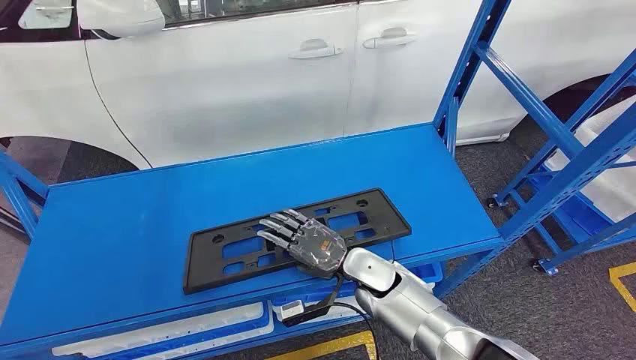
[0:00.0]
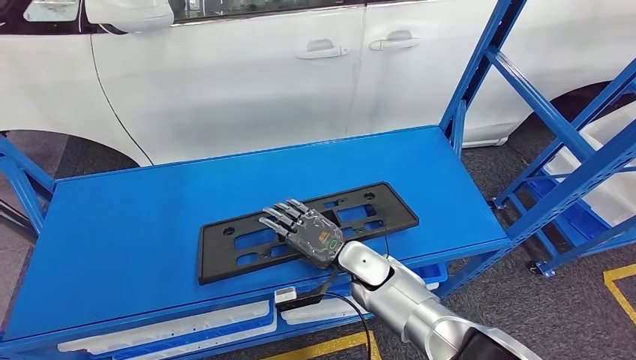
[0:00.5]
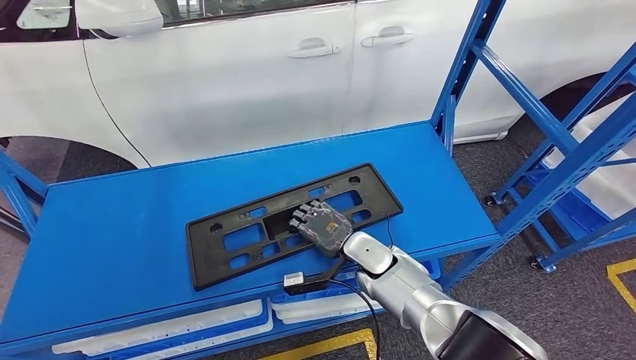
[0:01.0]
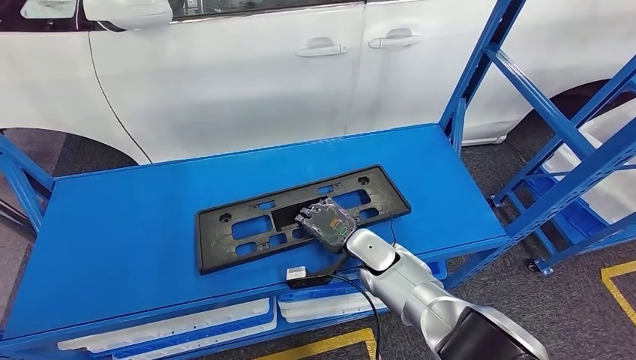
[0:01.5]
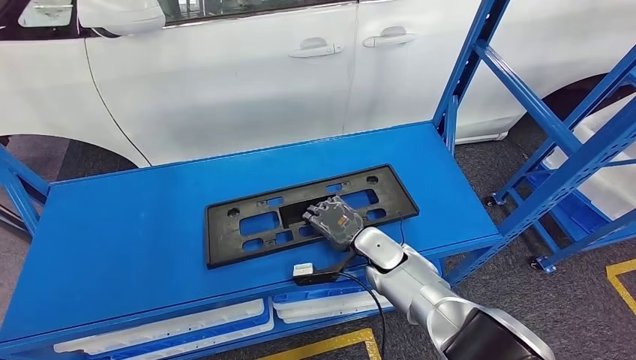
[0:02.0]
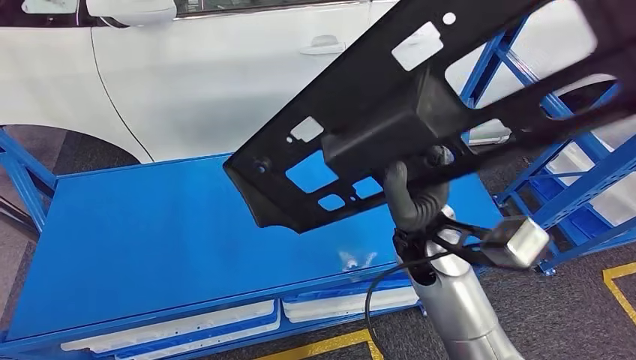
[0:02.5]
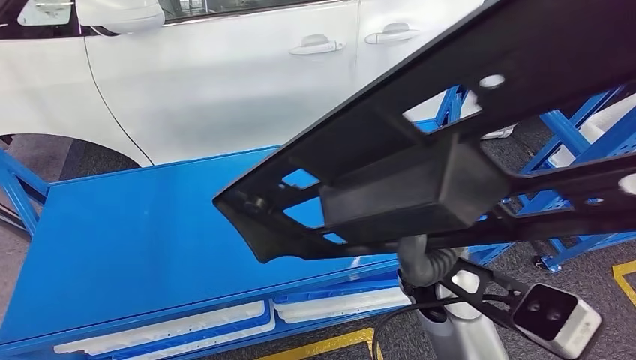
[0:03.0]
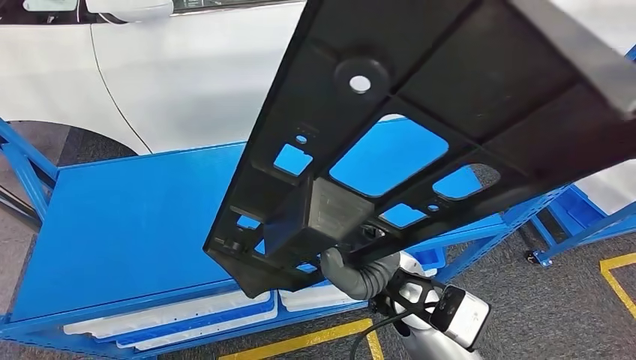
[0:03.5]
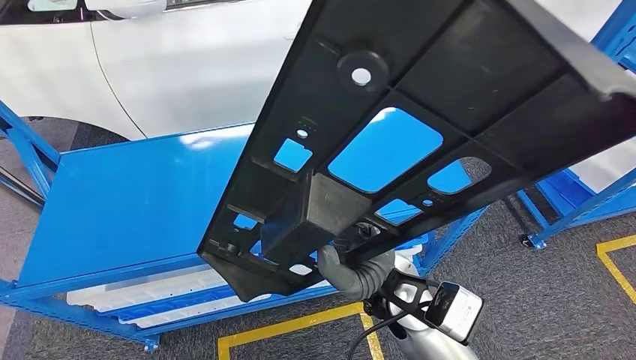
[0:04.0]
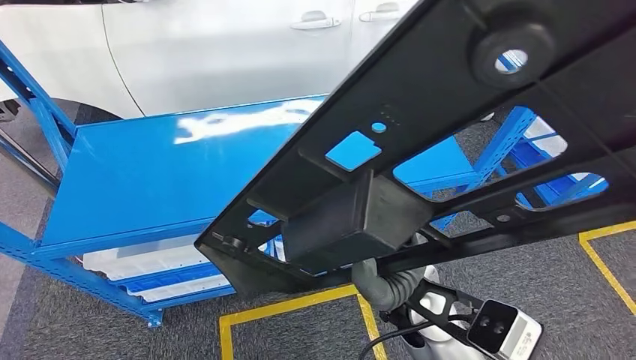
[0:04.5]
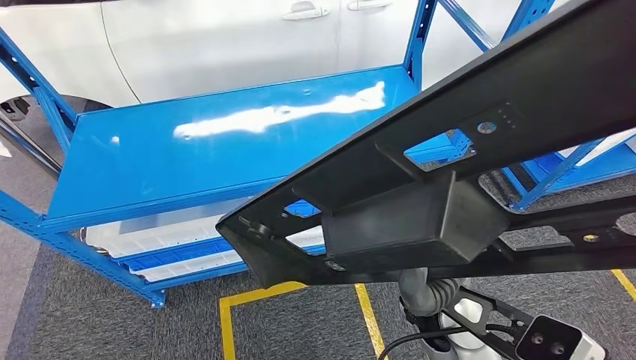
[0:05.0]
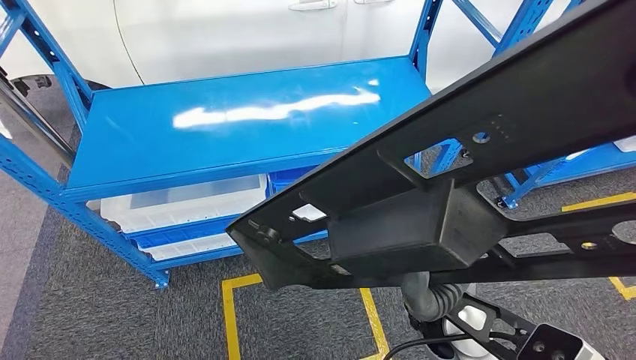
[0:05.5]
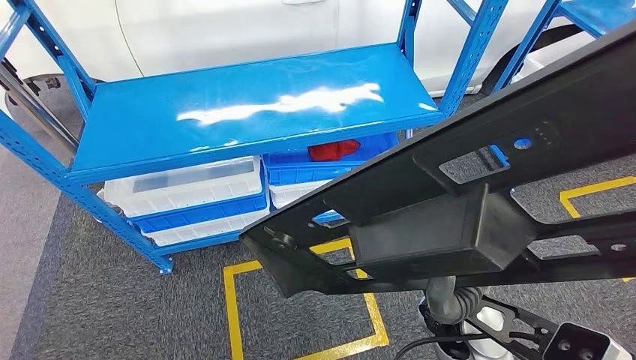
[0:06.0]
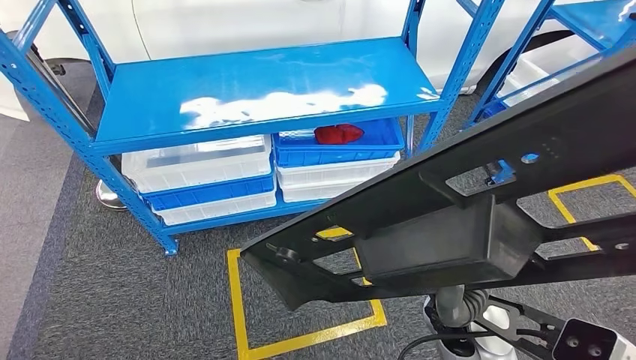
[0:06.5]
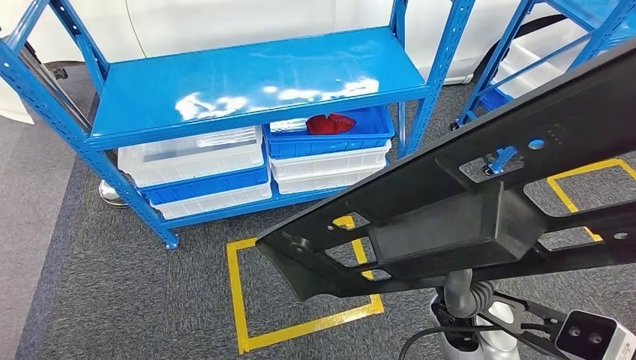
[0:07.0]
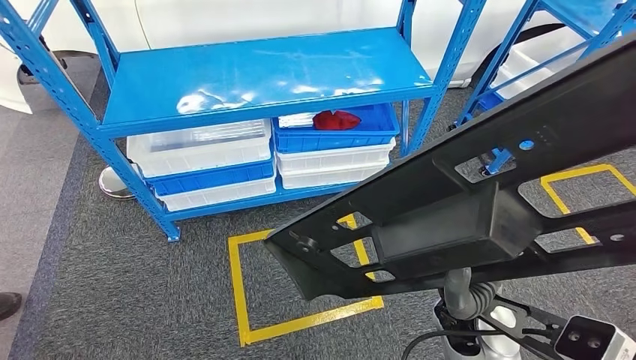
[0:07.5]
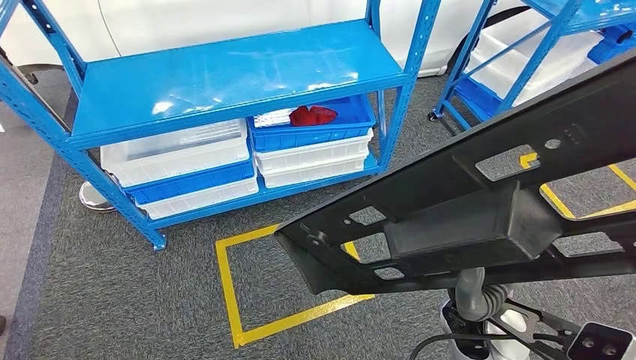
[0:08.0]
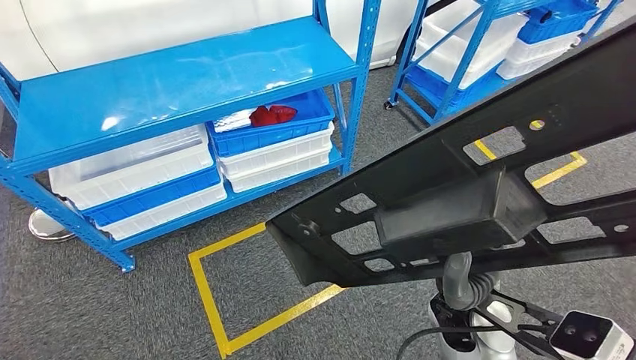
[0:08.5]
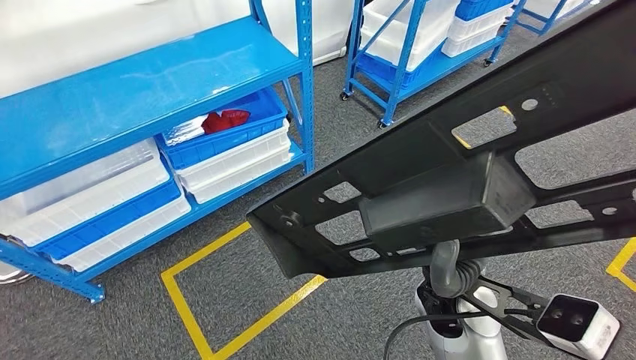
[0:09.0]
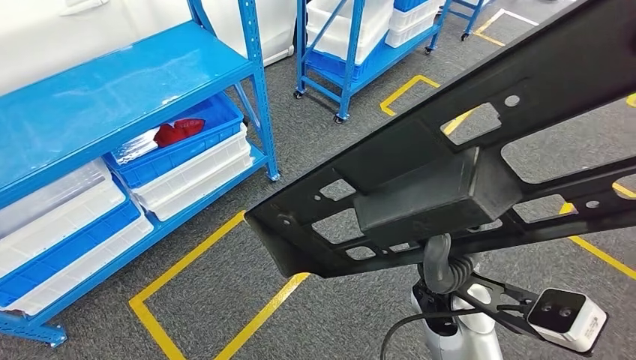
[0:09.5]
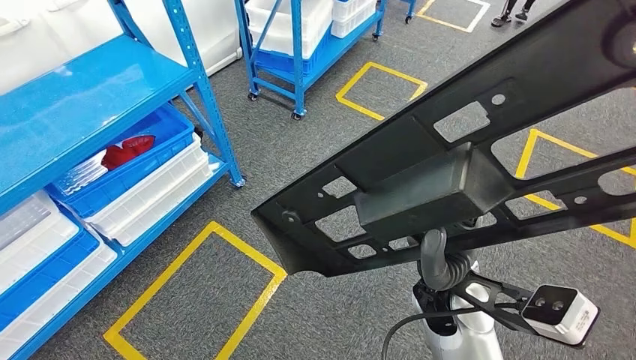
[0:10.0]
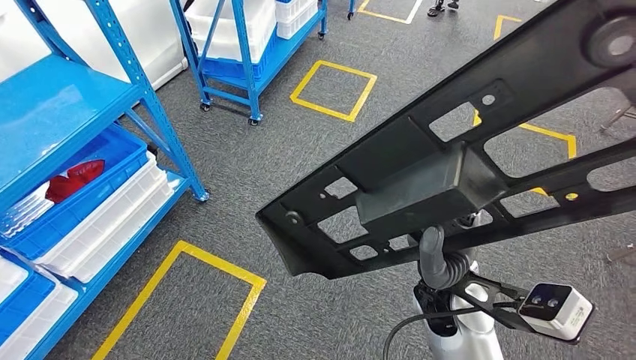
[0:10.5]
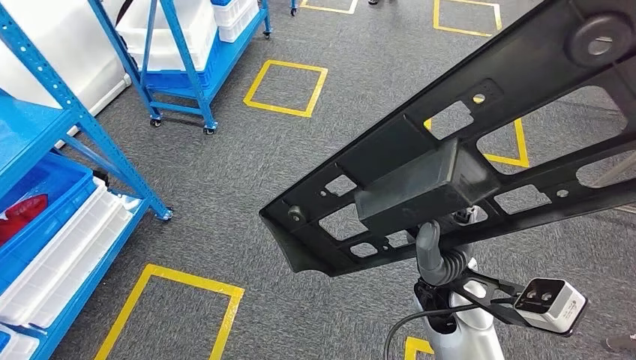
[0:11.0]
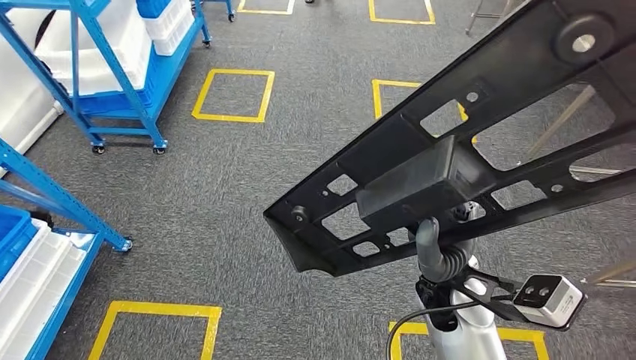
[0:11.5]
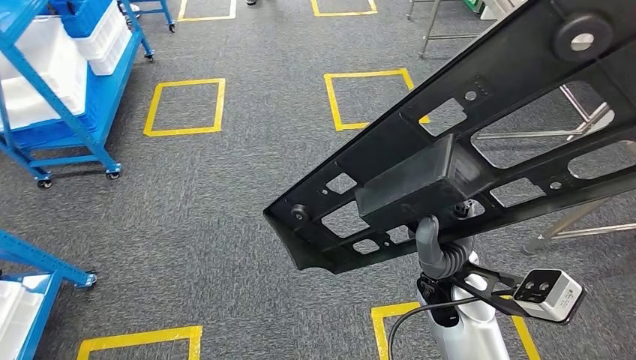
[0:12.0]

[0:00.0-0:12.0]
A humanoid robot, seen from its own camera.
Step, 0:00.0 to 0:03.0: Pick up the large material from the shelf.

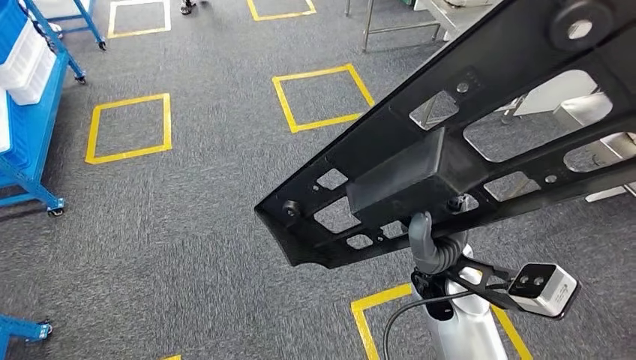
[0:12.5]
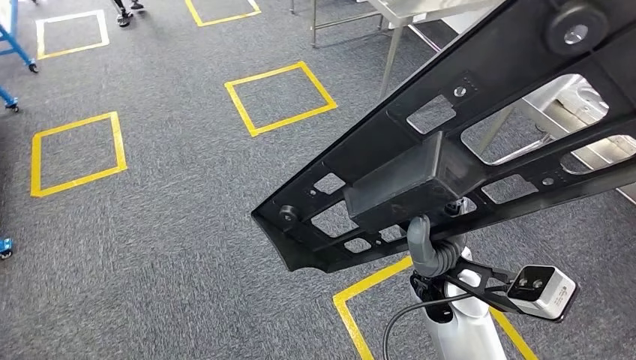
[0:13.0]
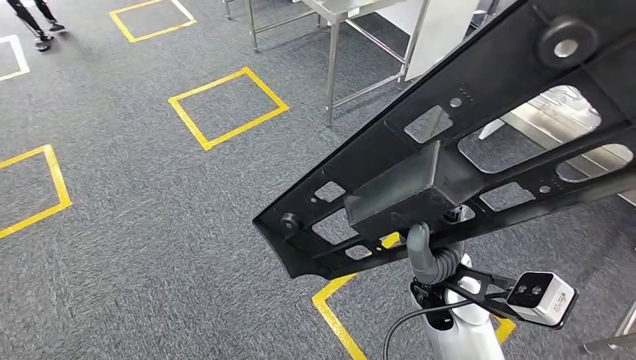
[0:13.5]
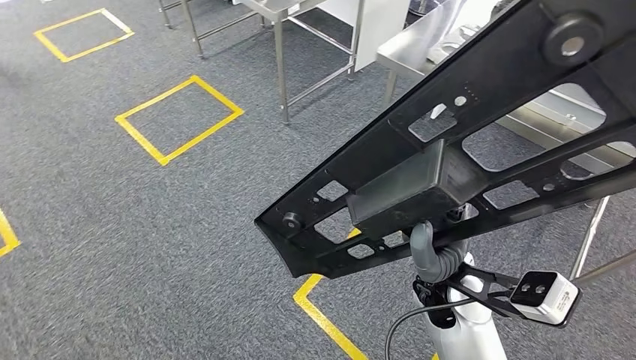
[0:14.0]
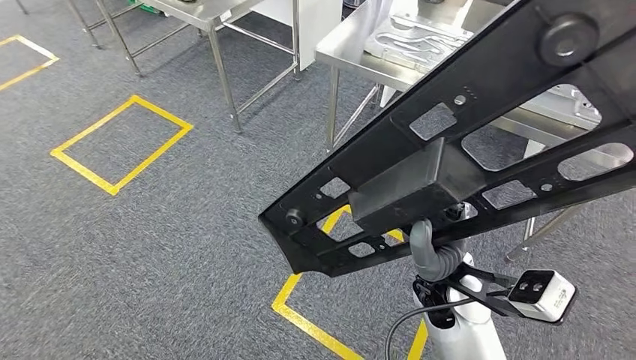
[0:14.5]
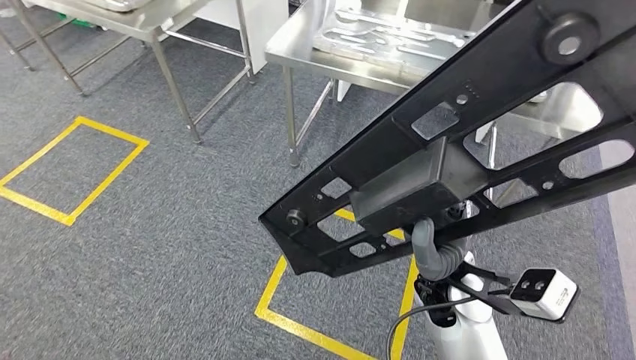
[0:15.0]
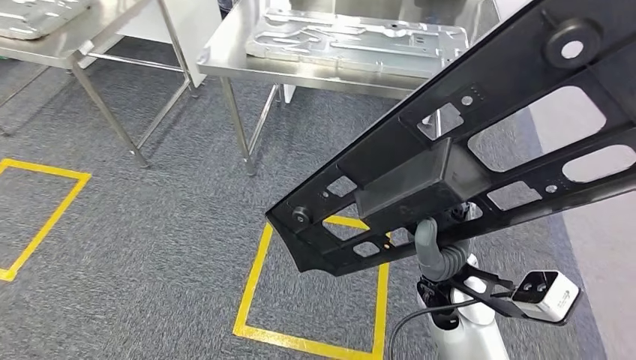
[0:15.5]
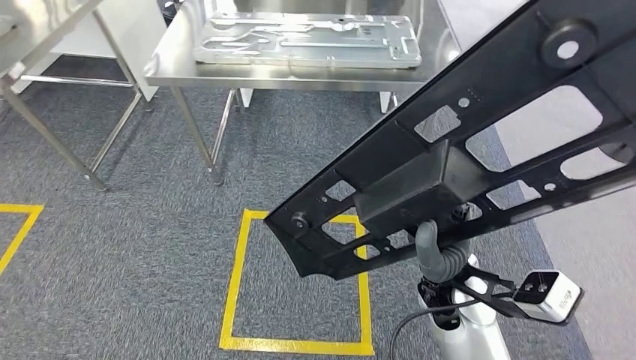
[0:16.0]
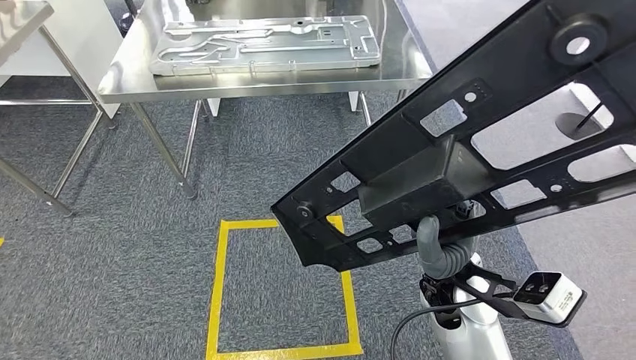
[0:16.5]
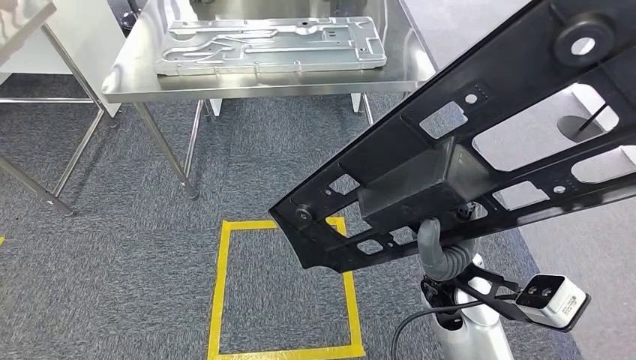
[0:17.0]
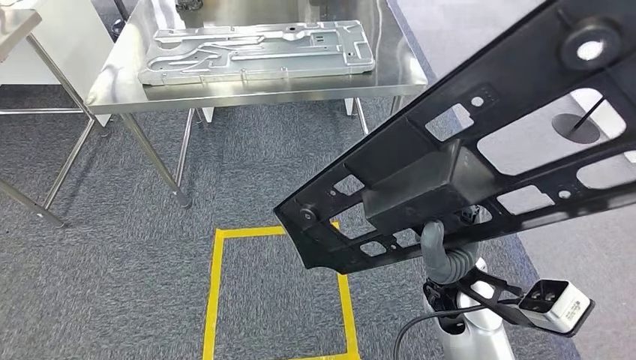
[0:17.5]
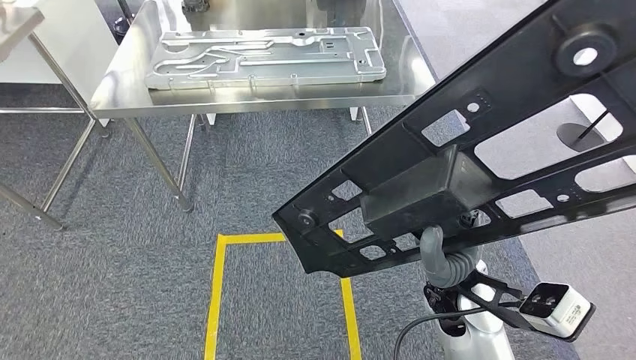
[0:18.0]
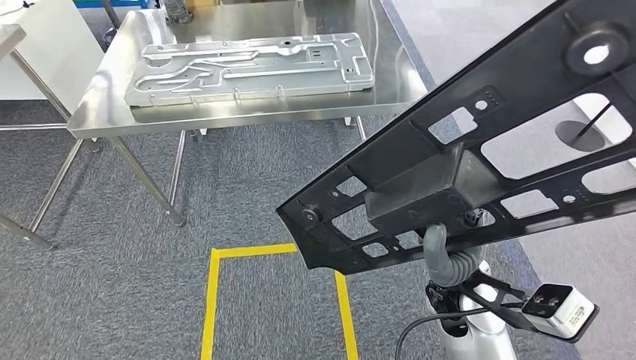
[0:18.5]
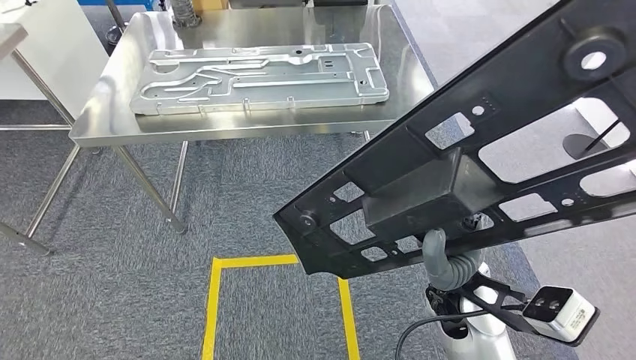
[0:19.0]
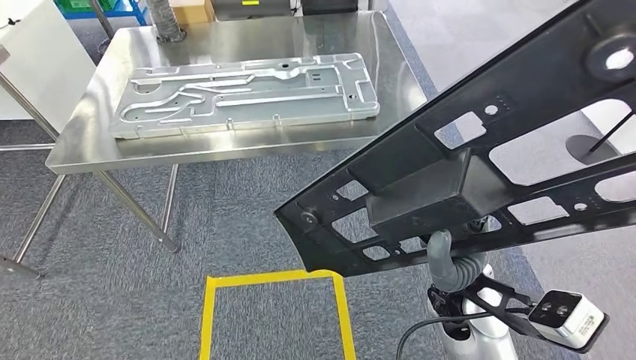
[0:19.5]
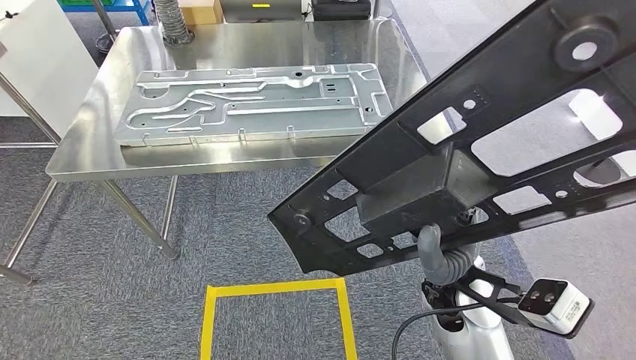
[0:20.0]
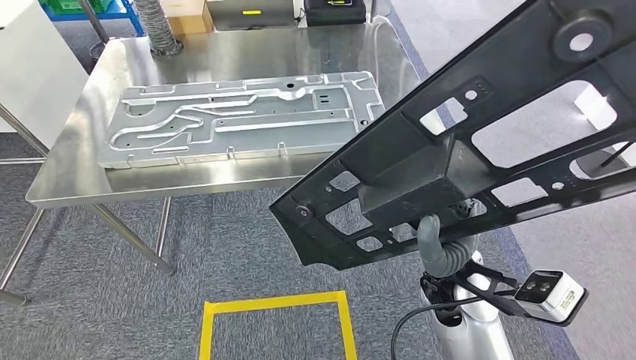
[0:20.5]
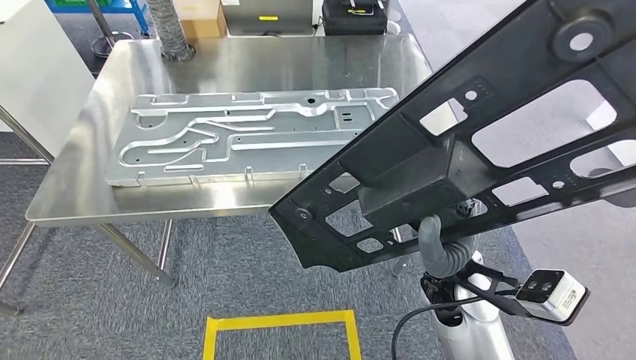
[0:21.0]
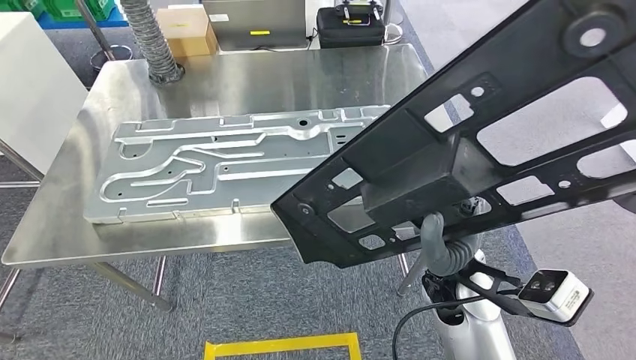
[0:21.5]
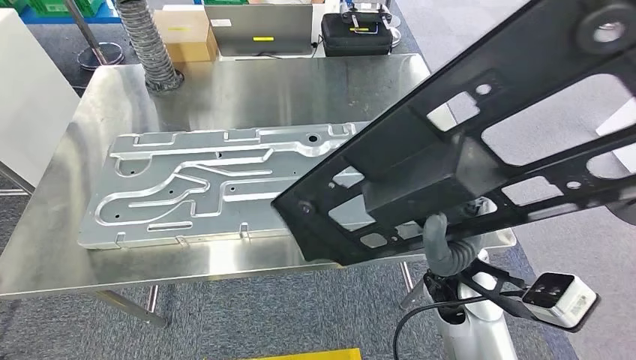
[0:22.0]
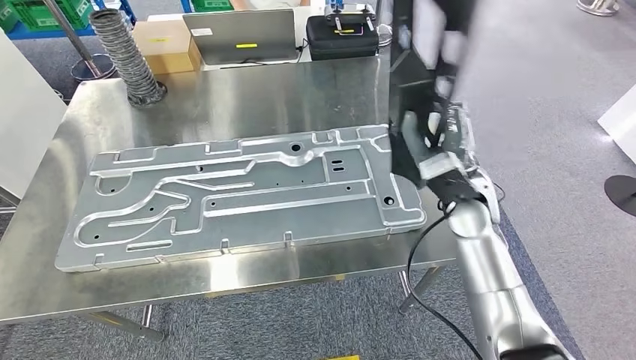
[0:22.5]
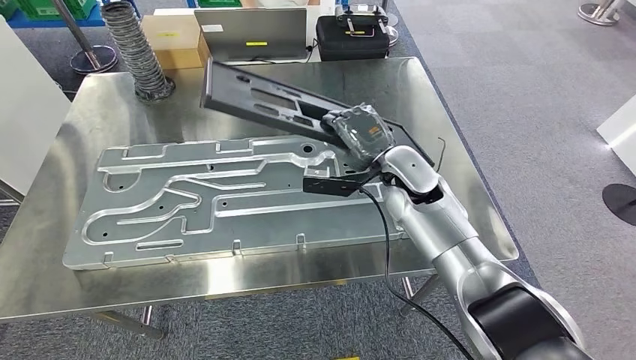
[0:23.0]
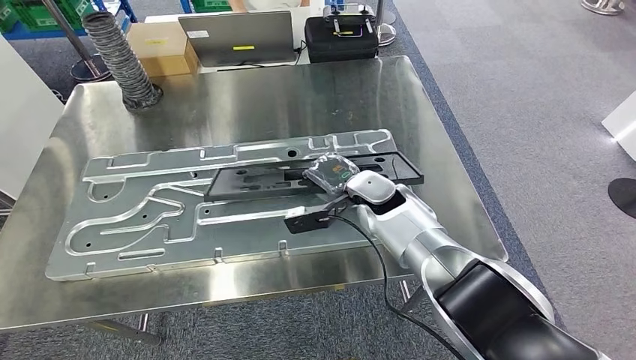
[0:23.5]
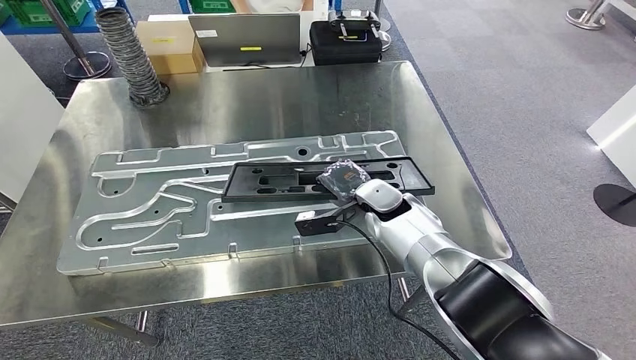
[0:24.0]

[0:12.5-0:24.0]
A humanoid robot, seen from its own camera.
Step, 0:12.5 to 0:20.0: Move the large material to the workbench.
